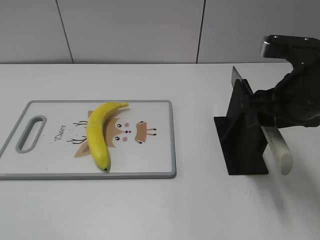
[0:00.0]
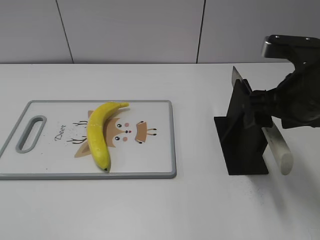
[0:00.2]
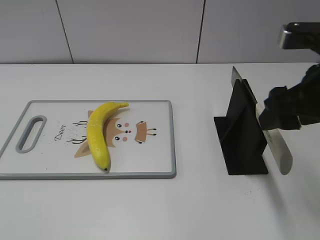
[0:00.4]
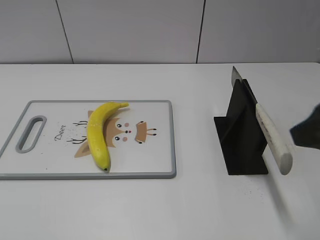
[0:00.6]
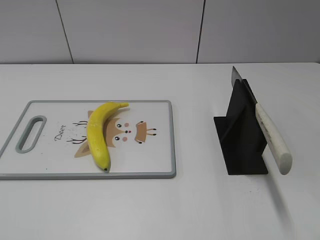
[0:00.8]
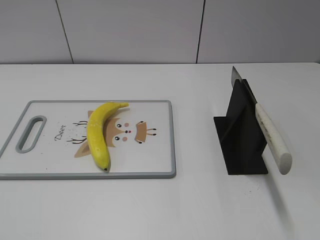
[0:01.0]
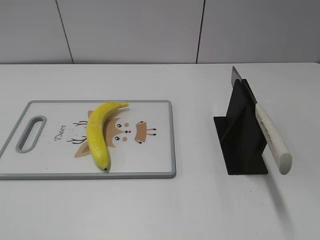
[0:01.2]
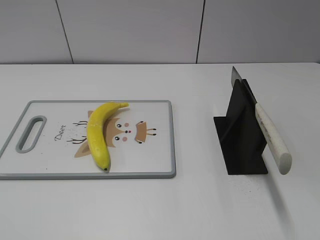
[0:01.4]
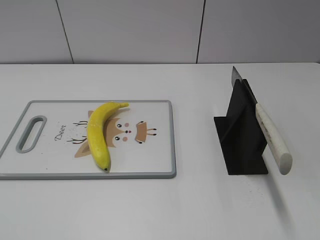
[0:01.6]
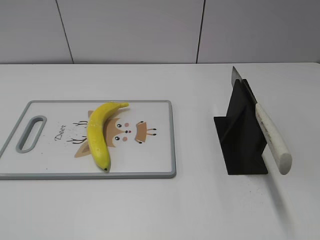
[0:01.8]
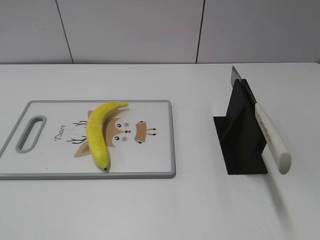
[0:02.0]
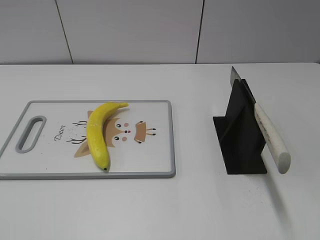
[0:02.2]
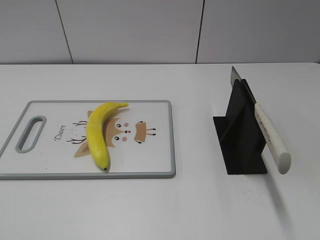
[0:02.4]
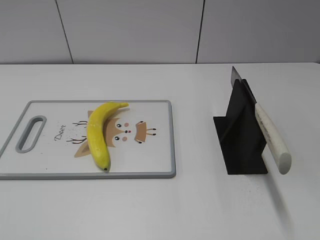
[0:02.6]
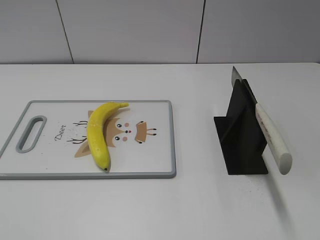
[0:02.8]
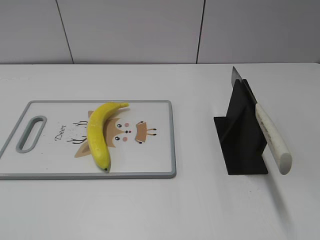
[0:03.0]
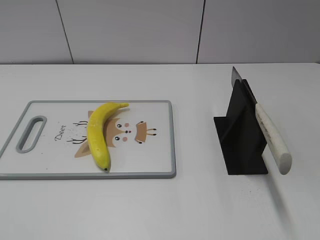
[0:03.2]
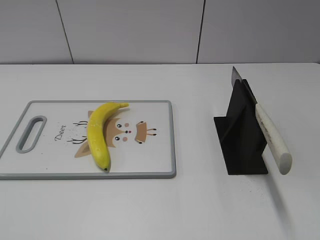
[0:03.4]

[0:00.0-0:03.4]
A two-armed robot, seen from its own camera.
Task of the whole recording: cut plastic banana.
Step, 0:00.0 to 0:03.4: Place the knife on the storage rack with your right hand.
0:00.0 to 0:01.6: The right gripper heads backward, covering some 25 cm.
